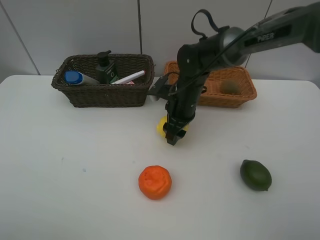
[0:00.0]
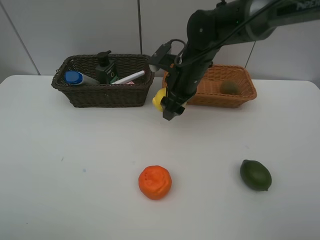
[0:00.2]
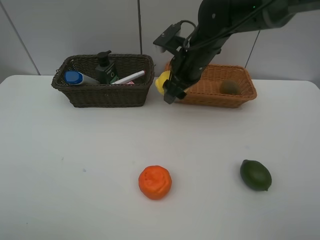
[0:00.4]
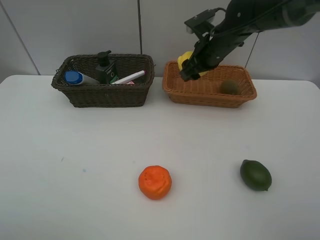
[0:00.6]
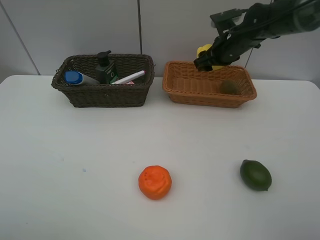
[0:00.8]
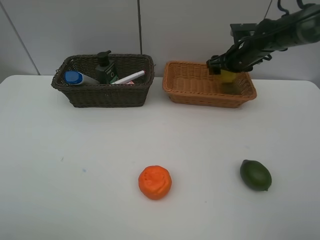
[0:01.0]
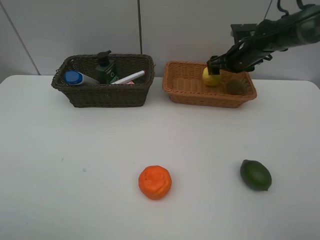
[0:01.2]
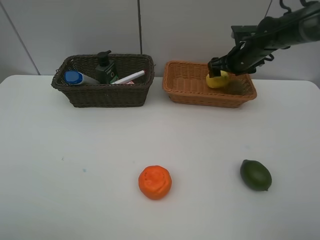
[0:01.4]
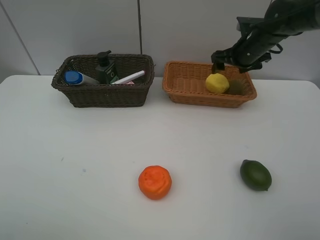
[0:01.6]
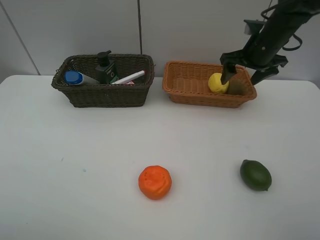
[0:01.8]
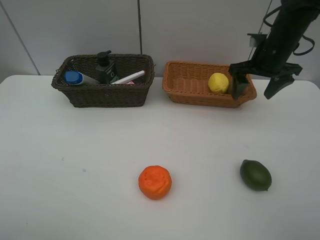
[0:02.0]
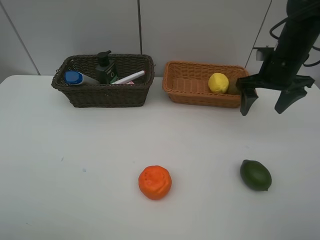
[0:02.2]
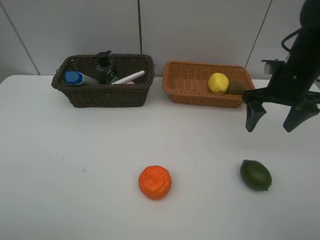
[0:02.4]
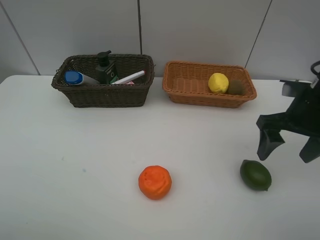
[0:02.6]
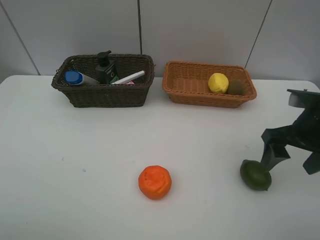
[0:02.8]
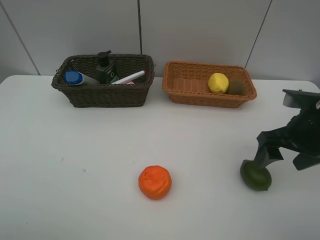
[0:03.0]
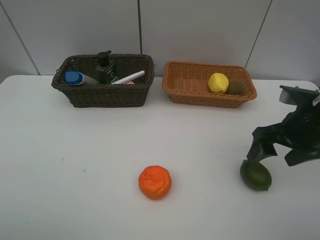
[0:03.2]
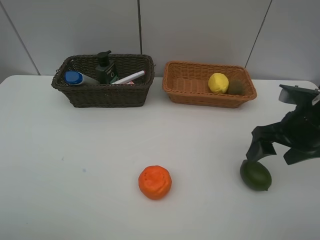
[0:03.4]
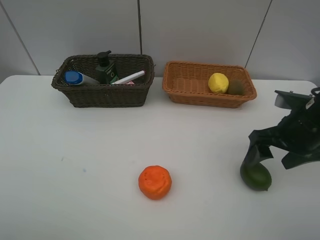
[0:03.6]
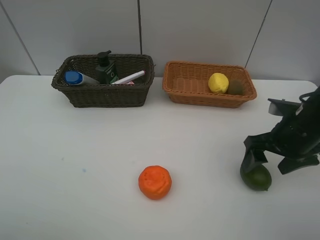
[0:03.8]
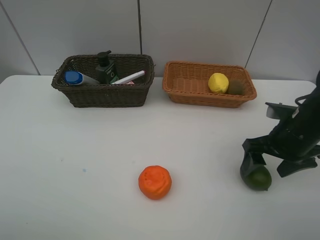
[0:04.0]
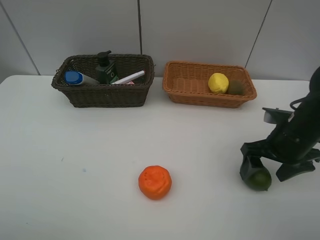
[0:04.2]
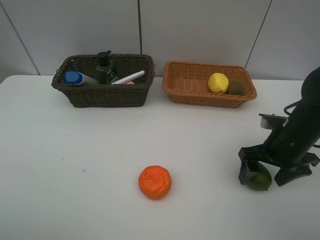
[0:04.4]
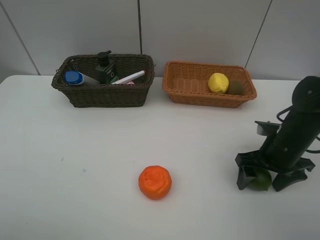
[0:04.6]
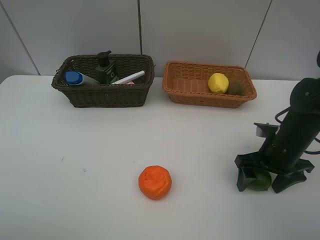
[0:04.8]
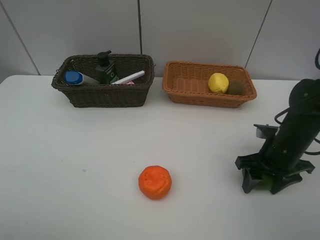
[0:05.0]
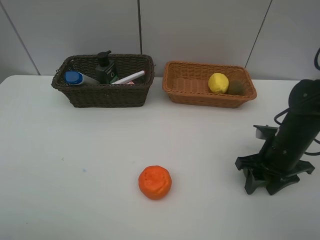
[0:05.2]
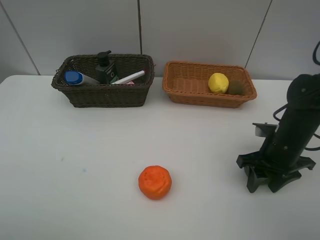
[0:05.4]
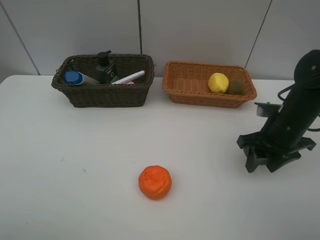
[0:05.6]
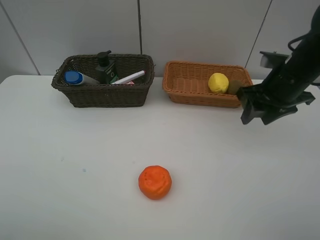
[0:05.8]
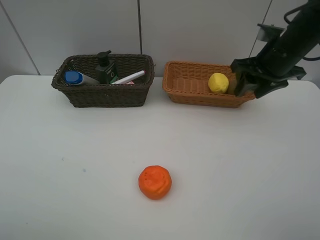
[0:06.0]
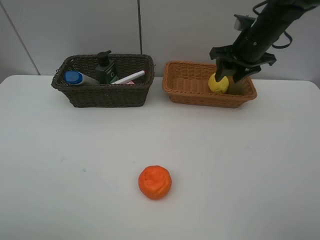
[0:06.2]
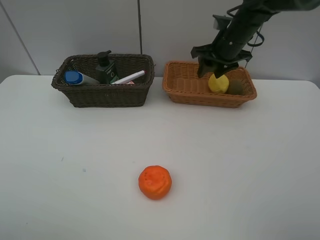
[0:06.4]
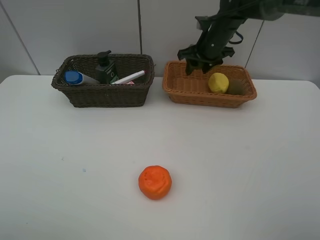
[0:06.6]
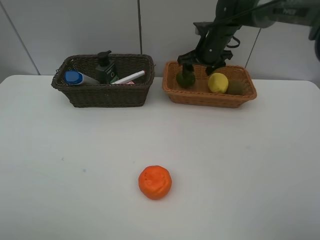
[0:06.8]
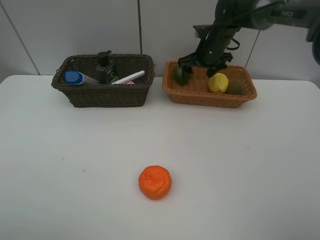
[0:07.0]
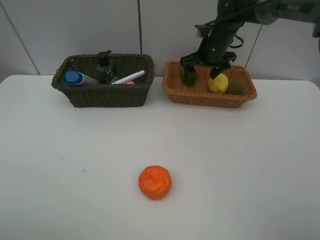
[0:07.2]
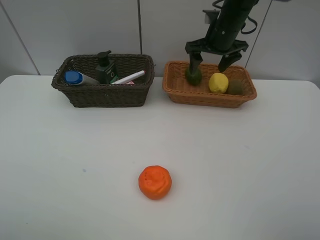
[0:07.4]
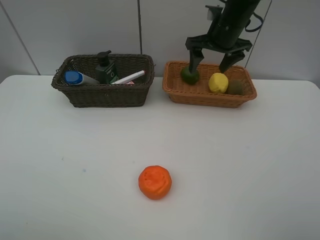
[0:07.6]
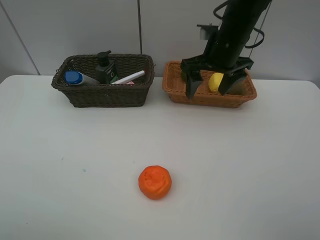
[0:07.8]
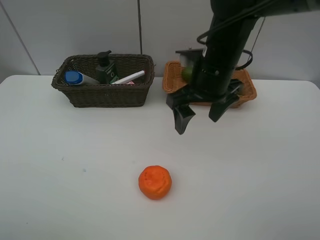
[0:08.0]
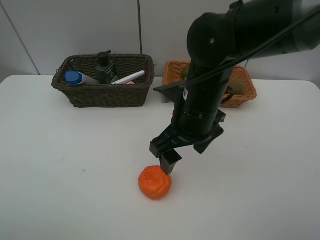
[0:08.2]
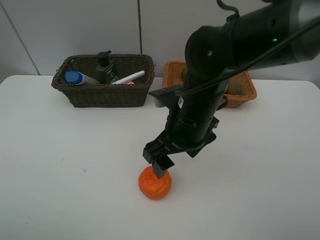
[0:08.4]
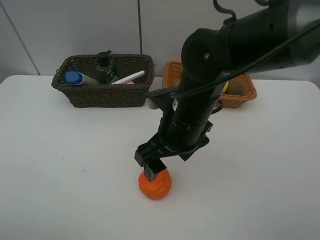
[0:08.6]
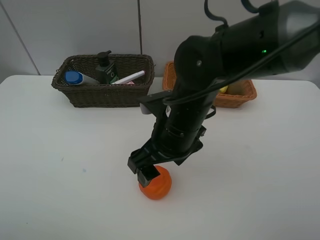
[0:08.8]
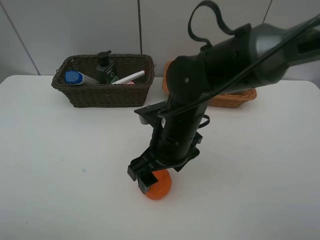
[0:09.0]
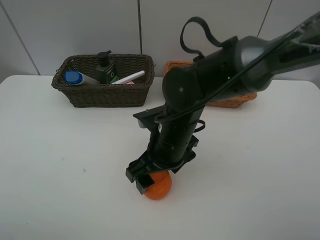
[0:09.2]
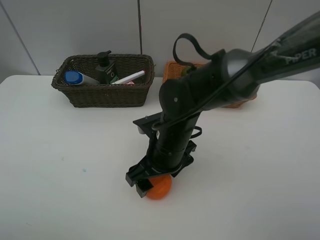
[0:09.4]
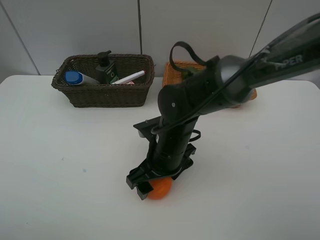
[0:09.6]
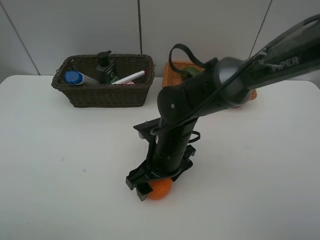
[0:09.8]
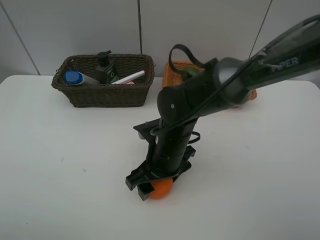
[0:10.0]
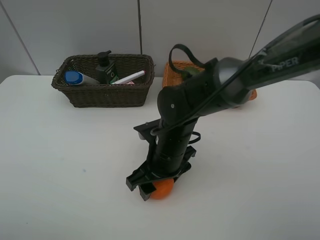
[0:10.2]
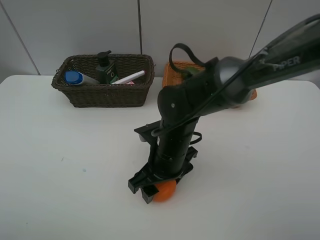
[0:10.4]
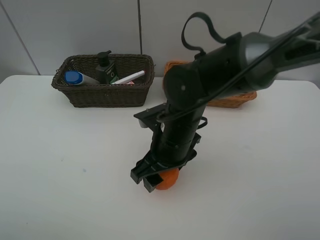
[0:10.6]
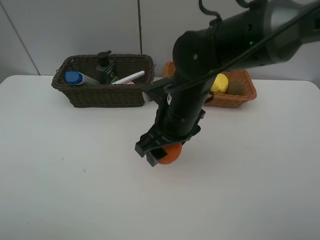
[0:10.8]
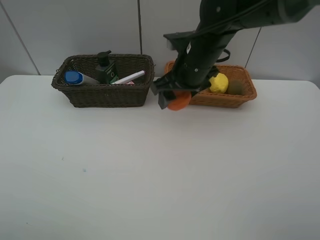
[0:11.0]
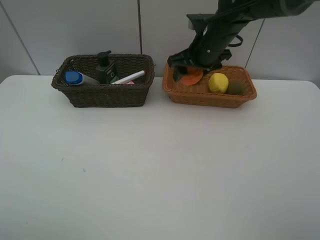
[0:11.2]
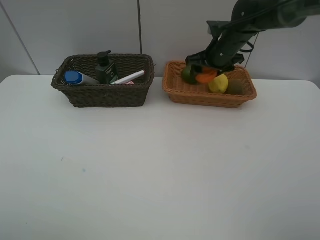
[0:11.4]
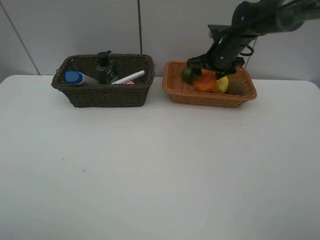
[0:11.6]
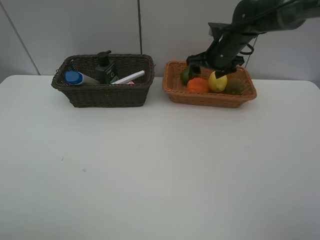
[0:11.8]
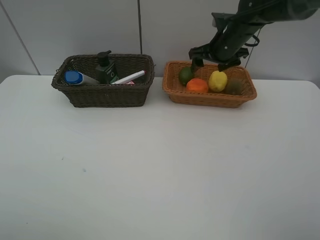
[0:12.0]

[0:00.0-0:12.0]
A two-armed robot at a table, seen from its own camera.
Task of the whole recording: Place multiple objects separately in different baskets.
Step, 0:00.2 to 0:01.2: Place the lemon in the light basket with right gripper.
Step, 0:01.4 to 0:05.4: Pick up the lime with right gripper.
Step, 0:05.6 to 0:06.8: Place the lime in the light basket with right gripper.
Step, 0:07.0 to 0:10.4: Pick up the orange with right gripper.
Step, 0:10.6 to 0:11.6: Place the orange in the light basket with right gripper.
0:00.0 to 0:01.6: The right gripper goes roughly 20 cm to the right, forward and upward, and opens its fingers.
0:01.6 to 0:03.0: The right gripper goes roughly 25 cm backward.
0:03.0 to 0:04.4: The right gripper goes approximately 5 cm downward.
0:04.4 to 0:06.0: The right gripper goes about 15 cm upward and forward, and closes up.
0:06.0 to 0:07.6: The right gripper shifts some 15 cm forward and to the left, and opens its fingers.
0:07.6 to 0:09.0: The right gripper travels backward, to the left and downward by approximately 25 cm.
0:09.0 to 0:10.4: The right gripper heads downward, covering approximately 5 cm, and closes up.
0:10.4 to 0:12.0: The right gripper travels forward, to the right and upward by roughly 30 cm, and opens its fingers.

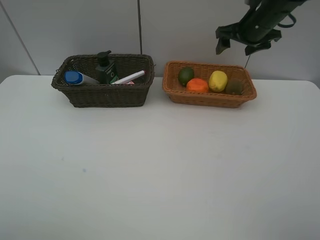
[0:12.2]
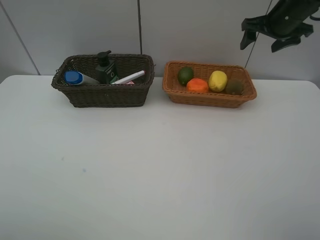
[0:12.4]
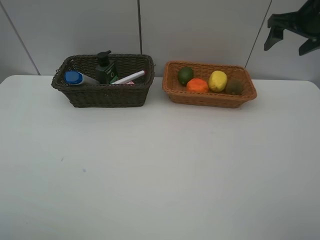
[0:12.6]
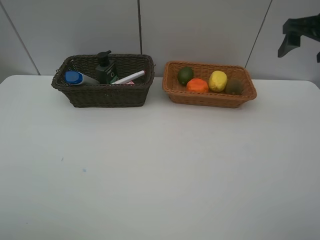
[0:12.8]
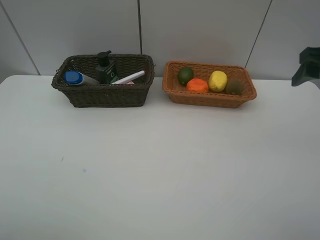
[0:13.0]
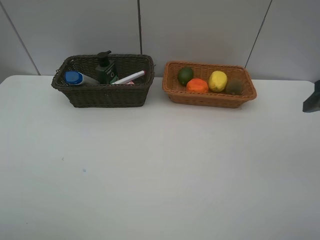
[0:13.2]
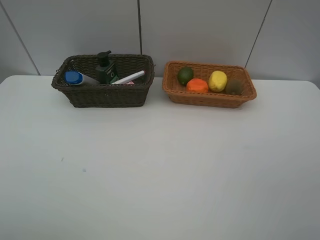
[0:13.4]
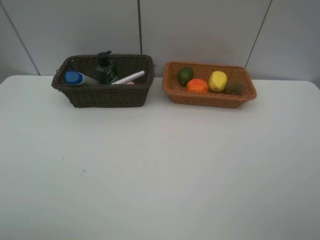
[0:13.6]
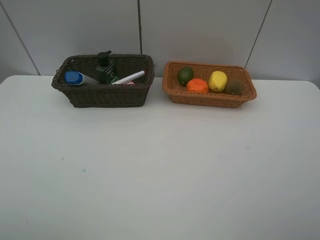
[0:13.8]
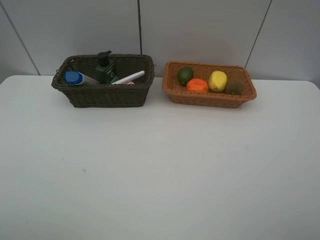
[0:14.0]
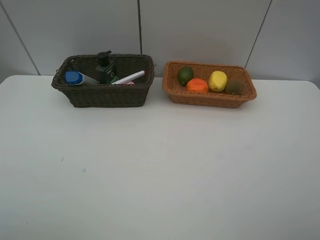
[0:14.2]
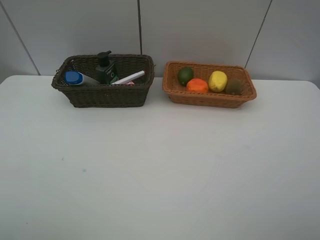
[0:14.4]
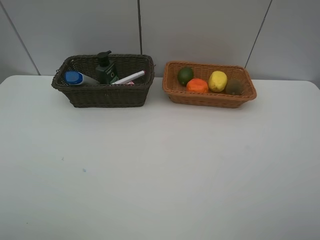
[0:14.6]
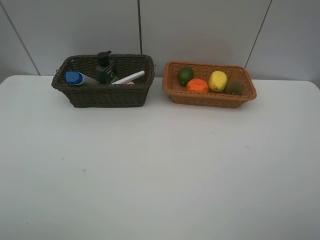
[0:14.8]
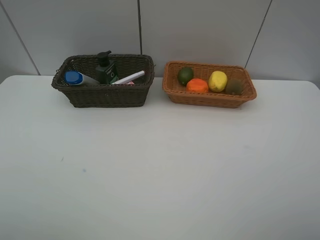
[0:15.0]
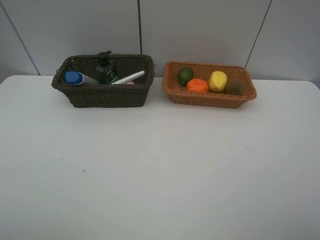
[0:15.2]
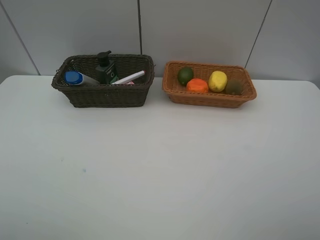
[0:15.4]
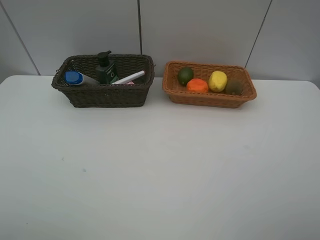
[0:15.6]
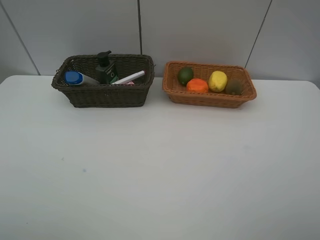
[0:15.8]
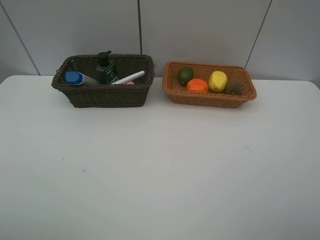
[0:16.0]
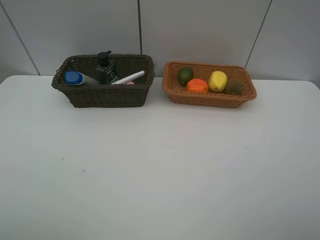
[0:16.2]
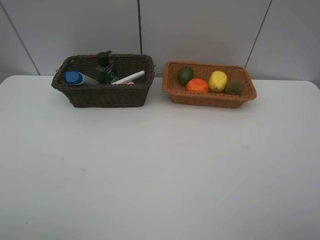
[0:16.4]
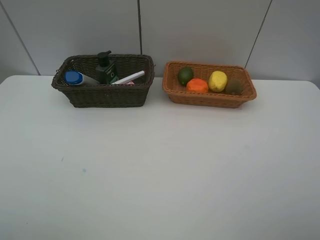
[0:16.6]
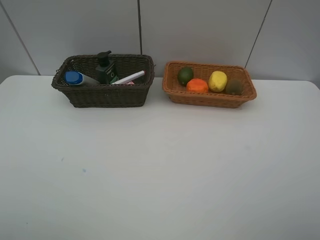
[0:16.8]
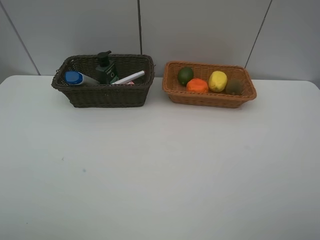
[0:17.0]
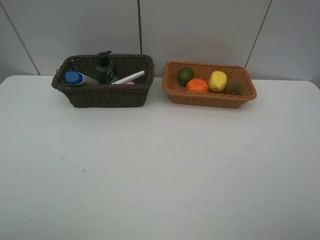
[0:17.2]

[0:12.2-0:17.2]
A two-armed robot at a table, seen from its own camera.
Task of the whole recording: Place multiple objects separately in different baskets.
0:12.2 to 0:13.8: The right gripper shifts approximately 40 cm backward.
0:15.6 to 0:17.2: Both grippers stay about where they are.

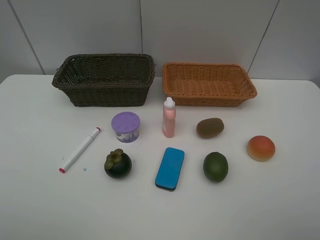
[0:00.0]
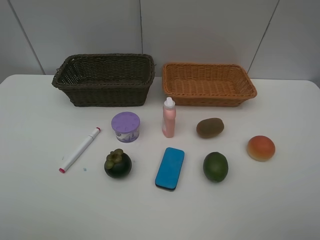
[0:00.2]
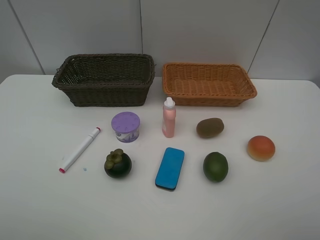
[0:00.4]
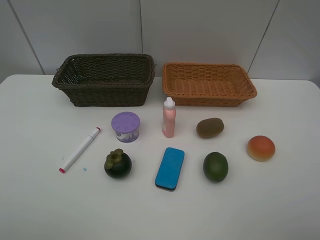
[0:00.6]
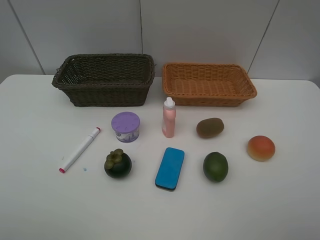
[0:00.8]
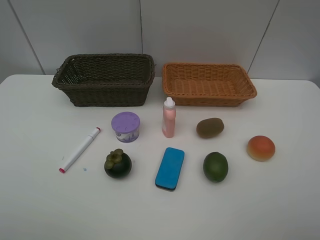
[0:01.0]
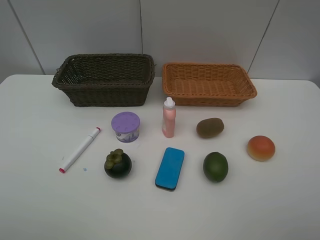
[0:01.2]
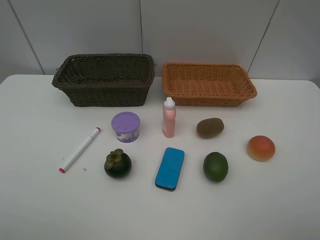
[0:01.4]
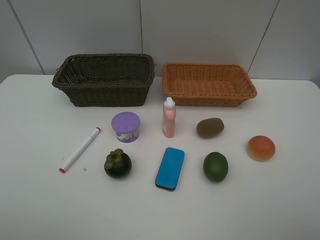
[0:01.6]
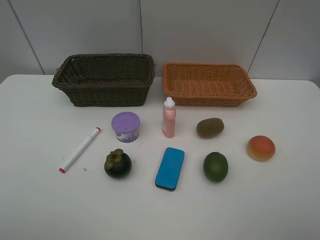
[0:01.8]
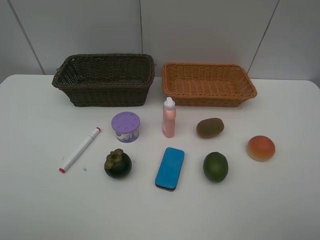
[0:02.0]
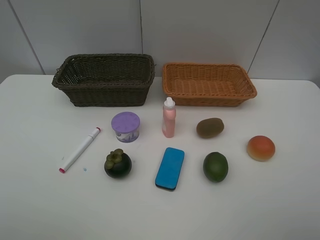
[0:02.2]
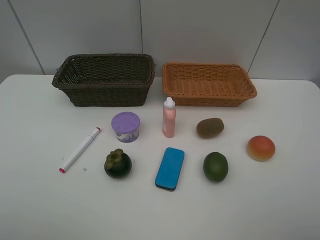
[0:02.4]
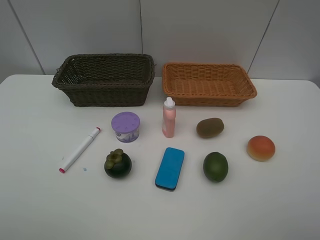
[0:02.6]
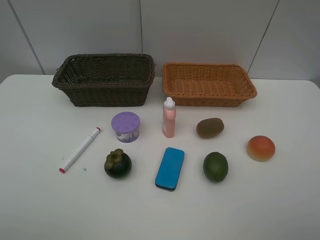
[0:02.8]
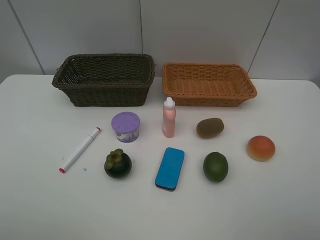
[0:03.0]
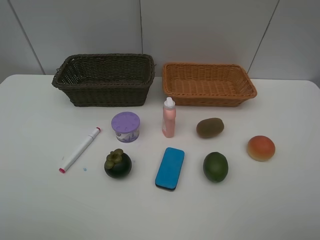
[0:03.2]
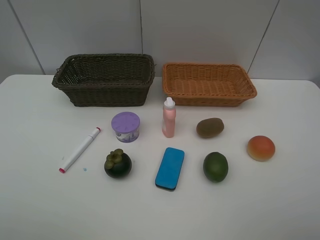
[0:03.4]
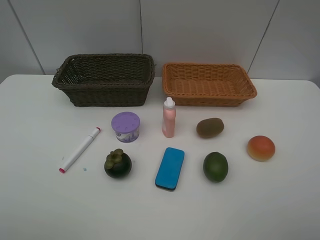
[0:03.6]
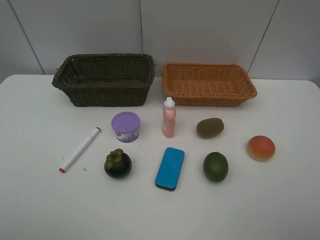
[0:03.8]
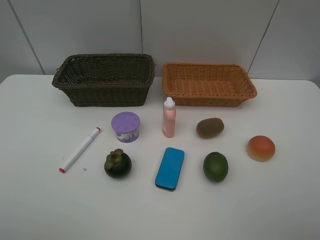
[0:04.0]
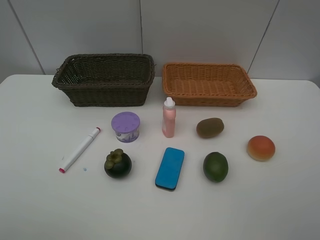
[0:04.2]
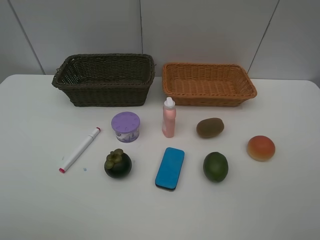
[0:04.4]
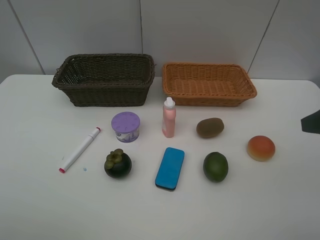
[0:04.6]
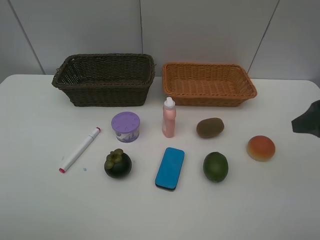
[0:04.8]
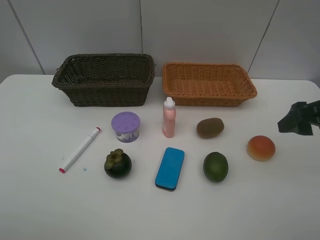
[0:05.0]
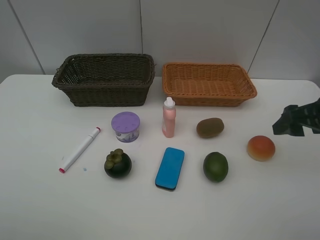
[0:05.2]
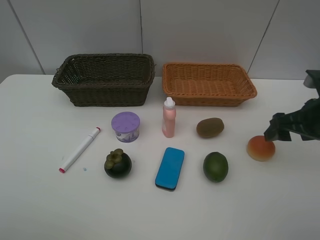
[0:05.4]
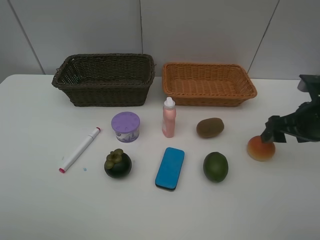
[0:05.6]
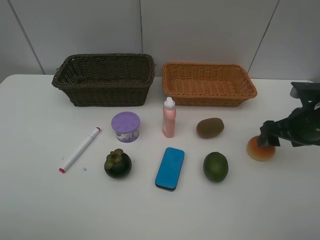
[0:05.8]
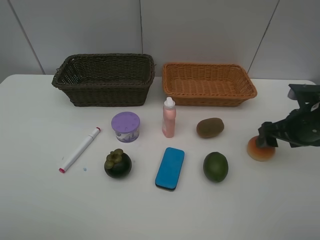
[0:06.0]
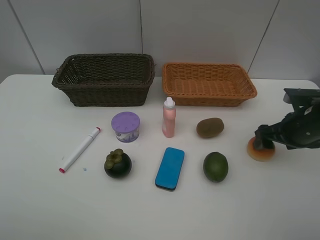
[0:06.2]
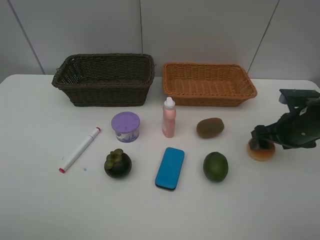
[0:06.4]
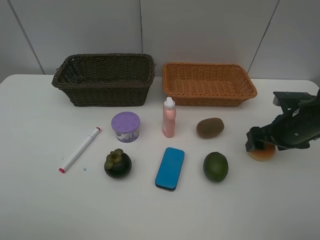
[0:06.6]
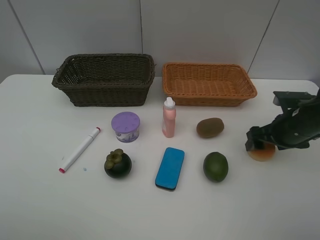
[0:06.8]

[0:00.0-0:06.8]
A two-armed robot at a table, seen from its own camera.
Task of the whole recording: Place multiple objects separately in different baskets.
0:00.0 to 0:02.8: Neither gripper changes place.
0:04.0 to 0:05.4: The right gripper goes approximately 20 cm forward and downward.
0:05.4 to 0:06.8: The right gripper heads downward, covering some 5 cm.
